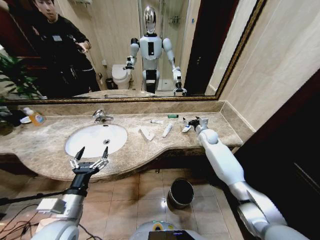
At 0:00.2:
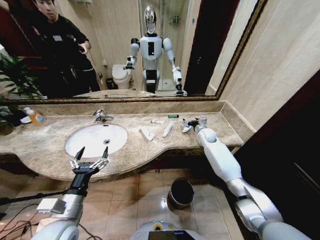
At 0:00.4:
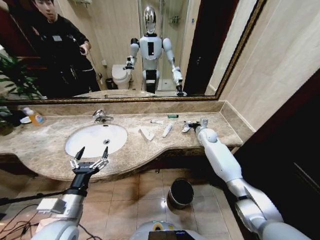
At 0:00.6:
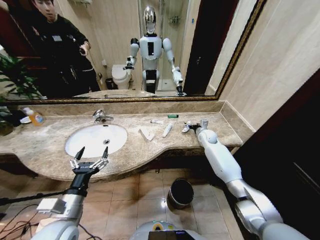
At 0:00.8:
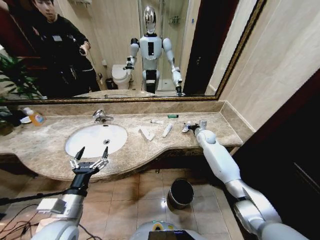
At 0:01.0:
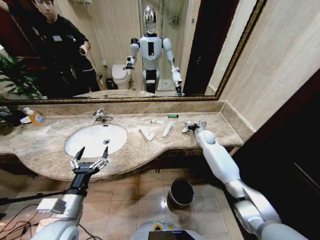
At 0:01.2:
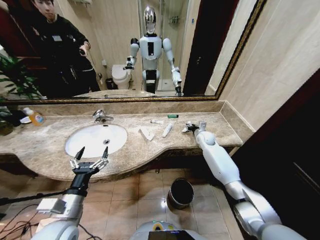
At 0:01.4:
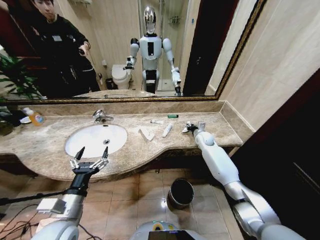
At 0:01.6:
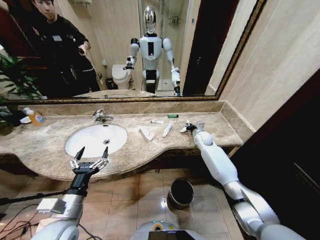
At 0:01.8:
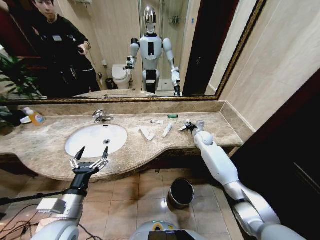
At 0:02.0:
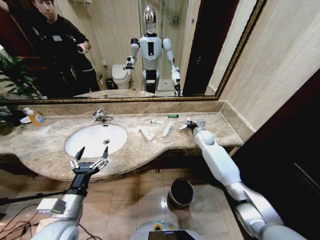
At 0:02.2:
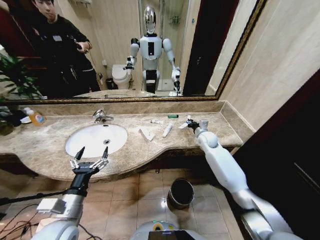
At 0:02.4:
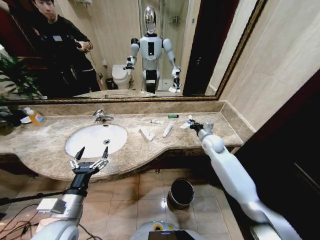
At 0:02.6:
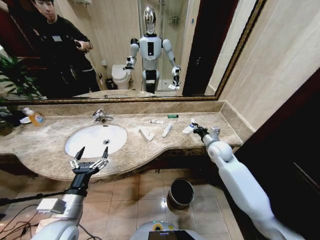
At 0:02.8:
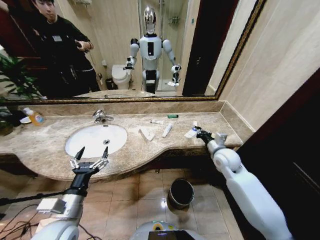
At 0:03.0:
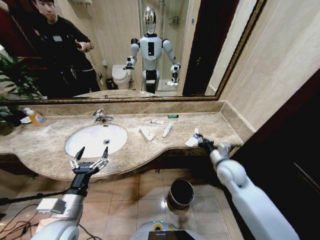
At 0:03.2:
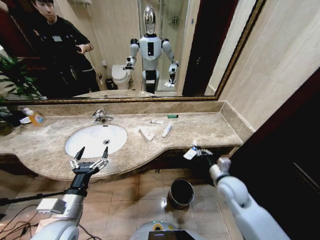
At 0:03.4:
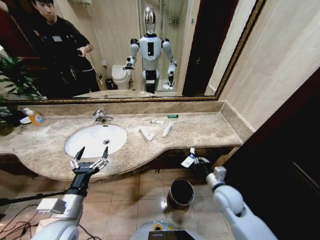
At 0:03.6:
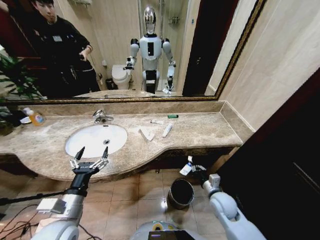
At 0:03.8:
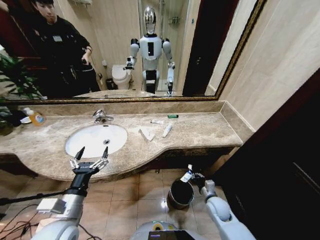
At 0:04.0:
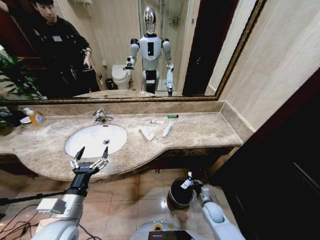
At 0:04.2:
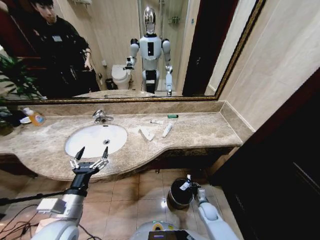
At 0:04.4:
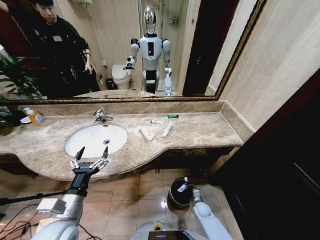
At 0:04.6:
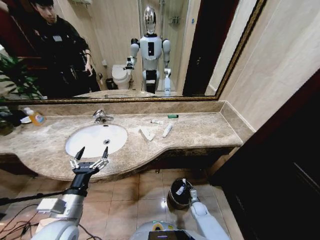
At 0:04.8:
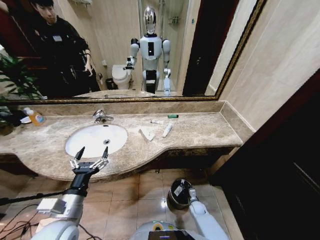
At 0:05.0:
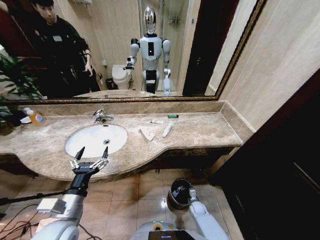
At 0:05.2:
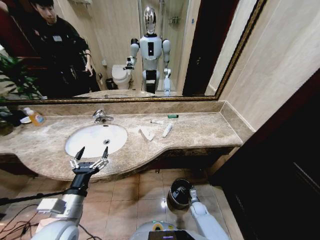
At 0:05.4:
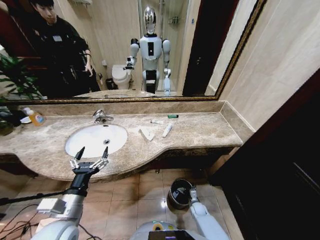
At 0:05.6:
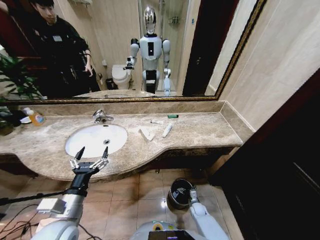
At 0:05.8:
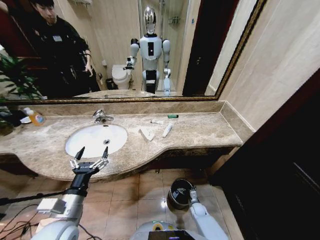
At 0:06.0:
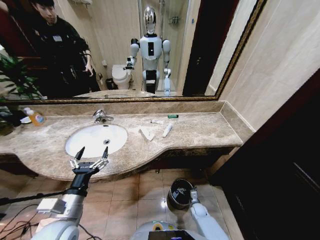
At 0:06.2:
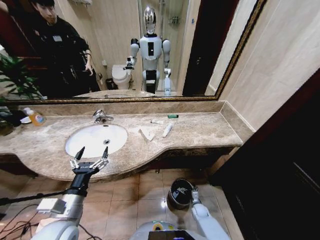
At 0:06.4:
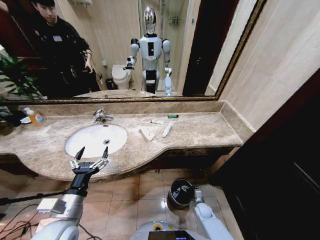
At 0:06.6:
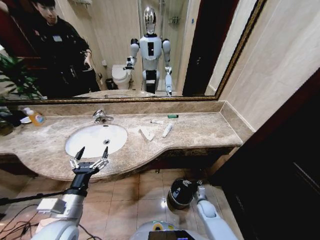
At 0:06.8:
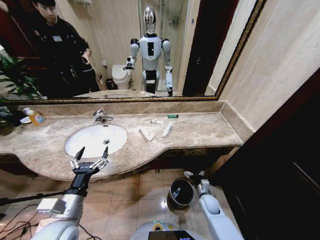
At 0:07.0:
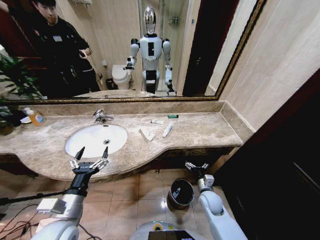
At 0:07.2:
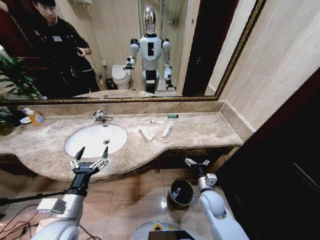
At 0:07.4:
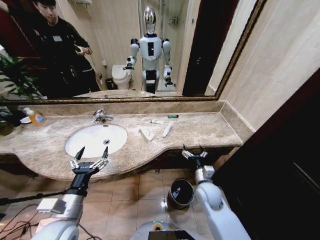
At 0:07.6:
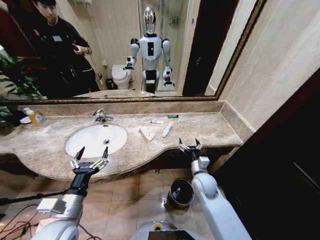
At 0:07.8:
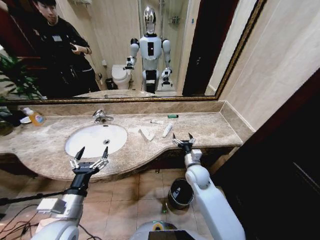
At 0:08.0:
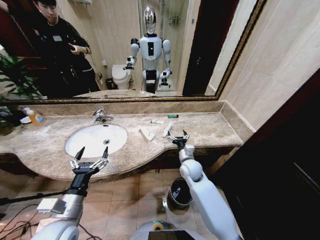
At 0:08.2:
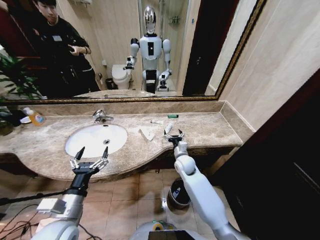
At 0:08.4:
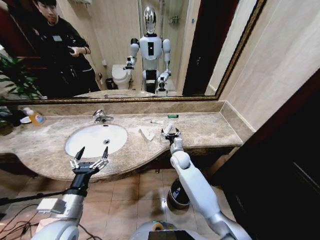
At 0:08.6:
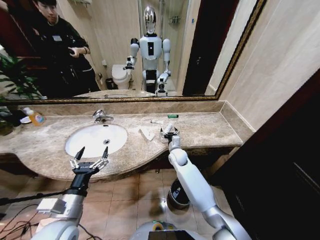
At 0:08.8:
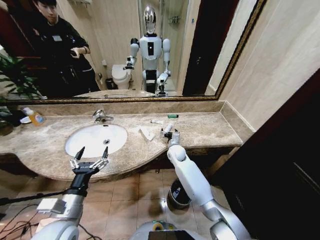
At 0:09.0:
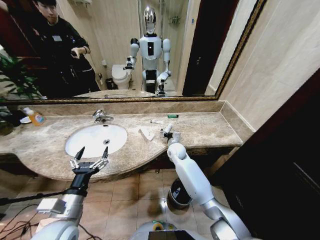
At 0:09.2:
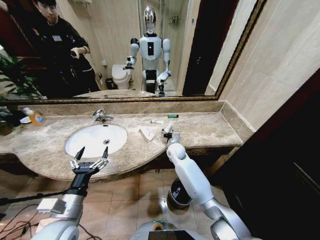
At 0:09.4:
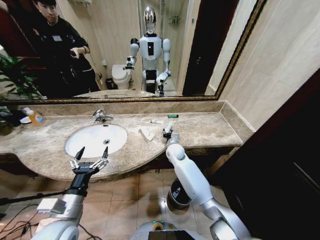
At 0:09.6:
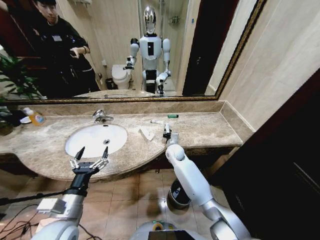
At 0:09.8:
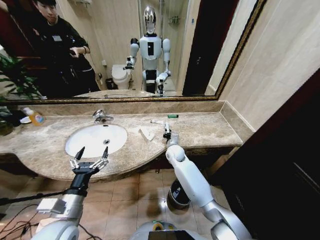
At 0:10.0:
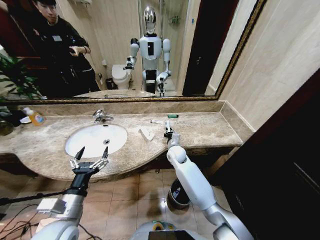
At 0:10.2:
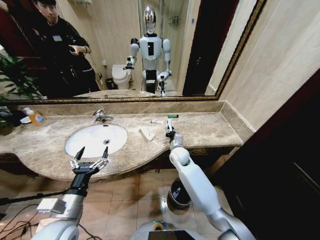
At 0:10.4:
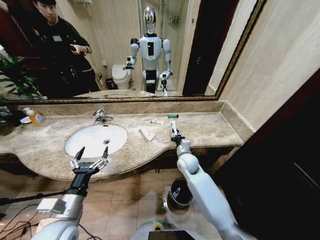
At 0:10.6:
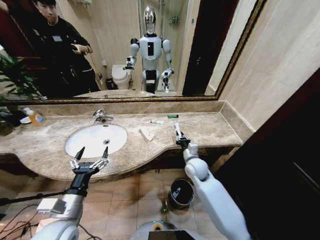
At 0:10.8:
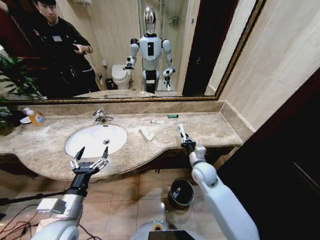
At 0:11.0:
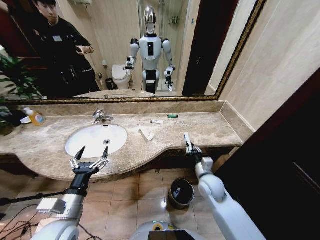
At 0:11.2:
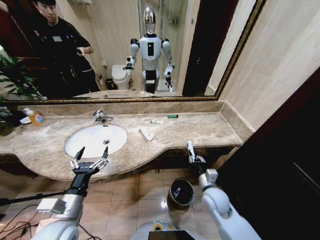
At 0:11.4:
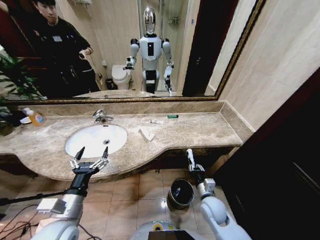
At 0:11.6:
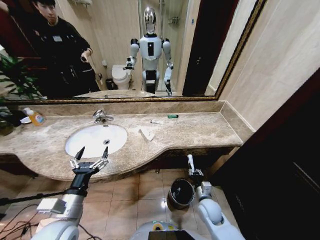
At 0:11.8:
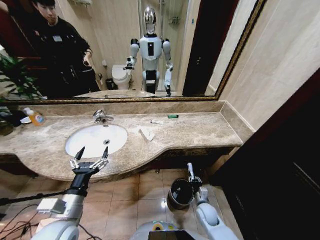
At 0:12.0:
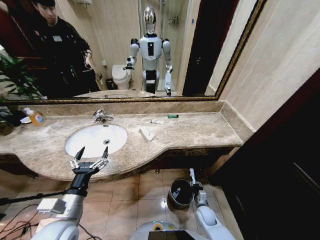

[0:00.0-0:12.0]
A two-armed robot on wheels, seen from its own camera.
Task of the whole recording: Pick up the trash from the sink and place it in the trash bin.
0:00.0 to 0:01.6: The right gripper closes its fingers.
0:01.6 to 0:03.0: The right gripper travels backward by some 25 cm.
0:03.0 to 0:04.4: The right gripper moves downward, about 35 cm.
0:04.4 to 0:06.0: The right gripper opens its fingers.
0:06.0 to 0:07.6: The right gripper shifts approximately 30 cm upward.
0:07.6 to 0:09.0: The right gripper moves forward and to the left, some 20 cm.
0:09.0 to 0:10.4: The right gripper shifts approximately 5 cm backward, and closes its fingers.
0:10.4 to 0:12.0: The right gripper shifts some 30 cm downward, backward and to the right.

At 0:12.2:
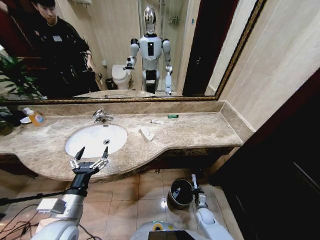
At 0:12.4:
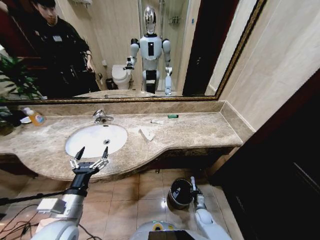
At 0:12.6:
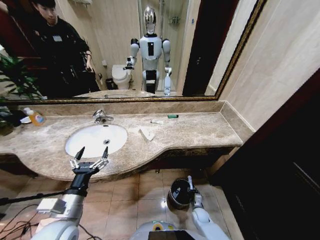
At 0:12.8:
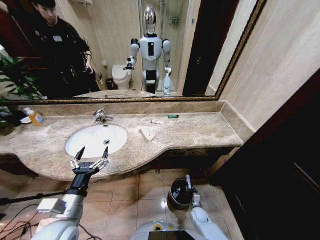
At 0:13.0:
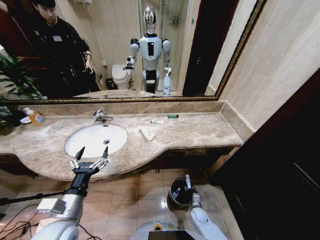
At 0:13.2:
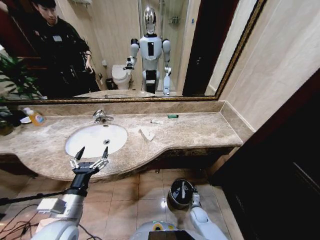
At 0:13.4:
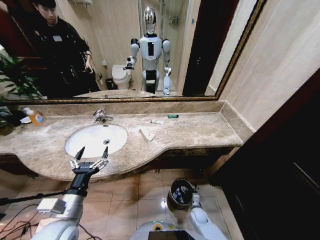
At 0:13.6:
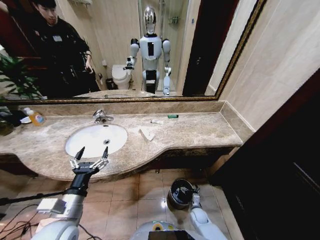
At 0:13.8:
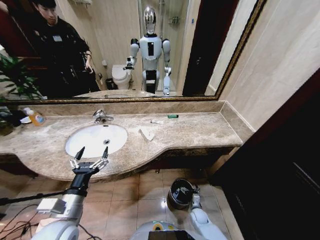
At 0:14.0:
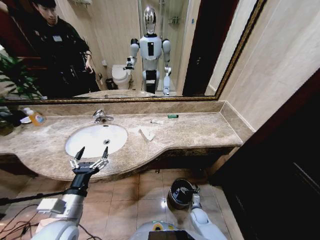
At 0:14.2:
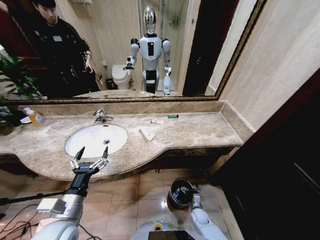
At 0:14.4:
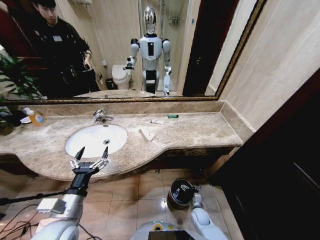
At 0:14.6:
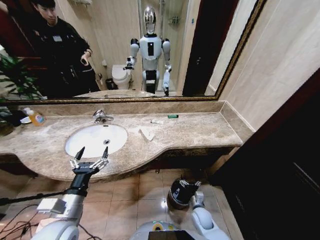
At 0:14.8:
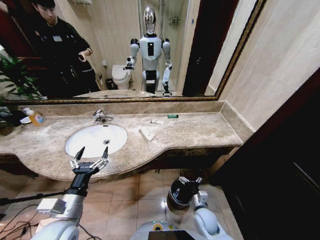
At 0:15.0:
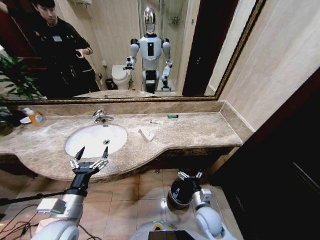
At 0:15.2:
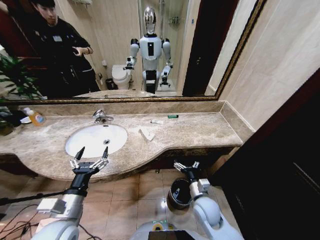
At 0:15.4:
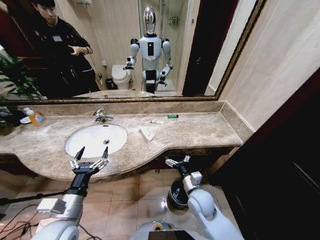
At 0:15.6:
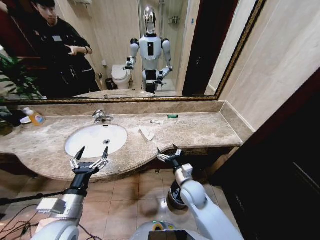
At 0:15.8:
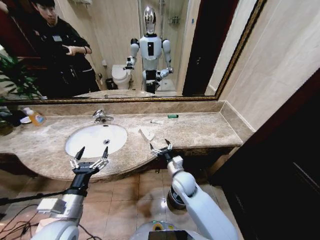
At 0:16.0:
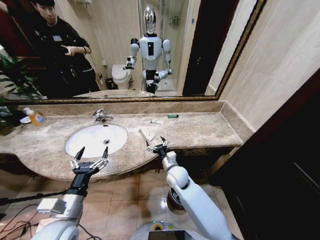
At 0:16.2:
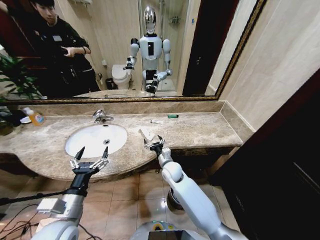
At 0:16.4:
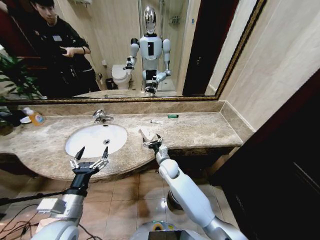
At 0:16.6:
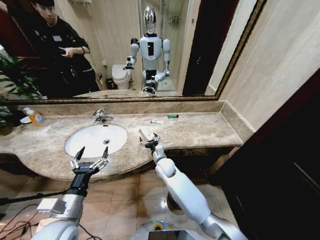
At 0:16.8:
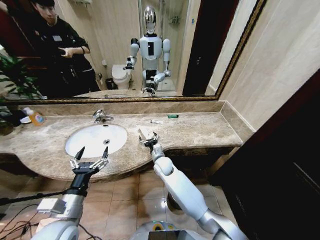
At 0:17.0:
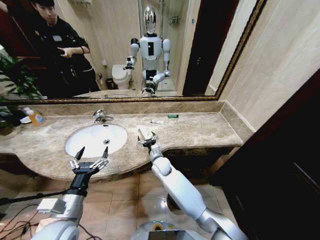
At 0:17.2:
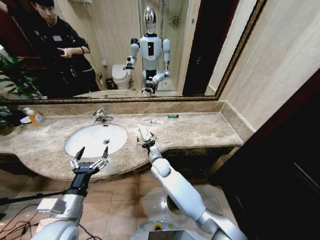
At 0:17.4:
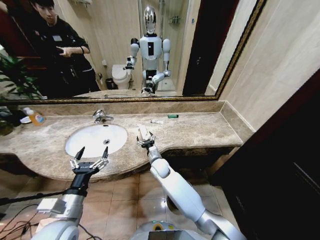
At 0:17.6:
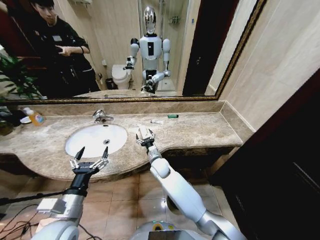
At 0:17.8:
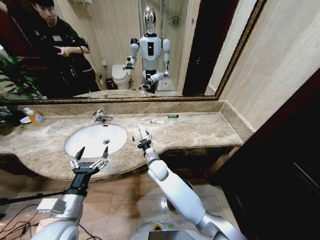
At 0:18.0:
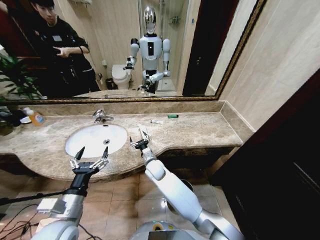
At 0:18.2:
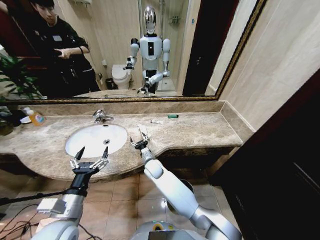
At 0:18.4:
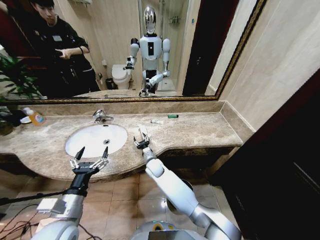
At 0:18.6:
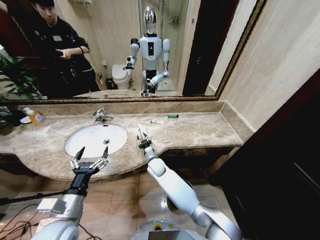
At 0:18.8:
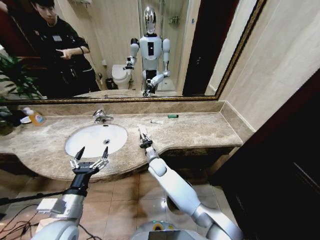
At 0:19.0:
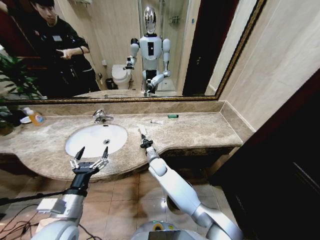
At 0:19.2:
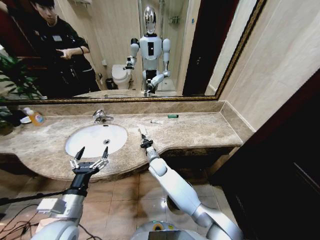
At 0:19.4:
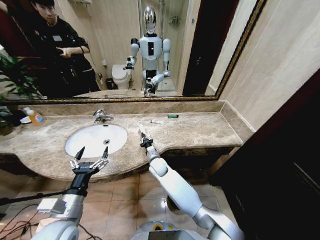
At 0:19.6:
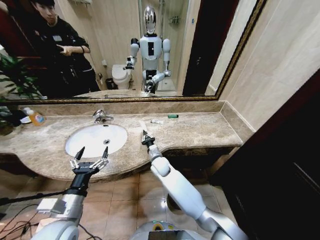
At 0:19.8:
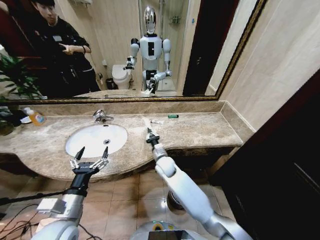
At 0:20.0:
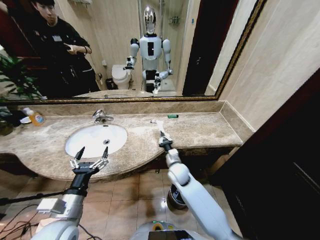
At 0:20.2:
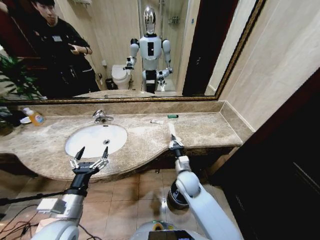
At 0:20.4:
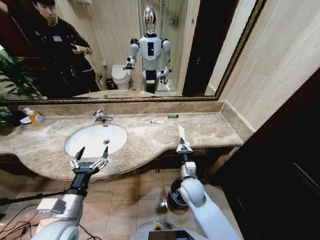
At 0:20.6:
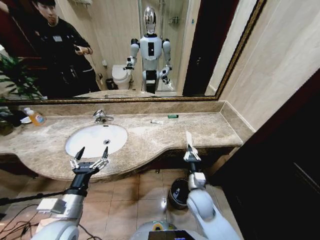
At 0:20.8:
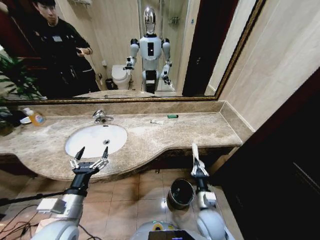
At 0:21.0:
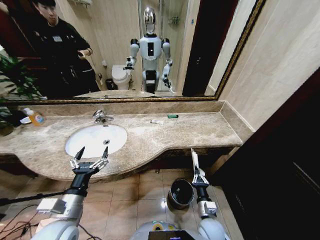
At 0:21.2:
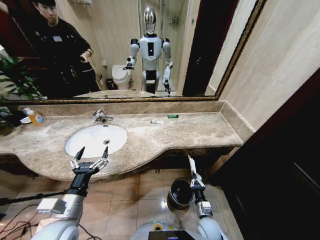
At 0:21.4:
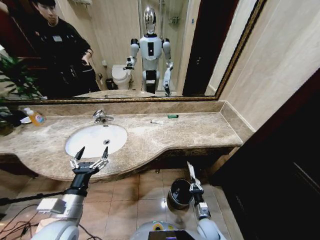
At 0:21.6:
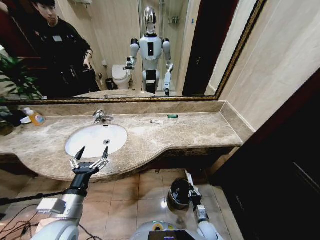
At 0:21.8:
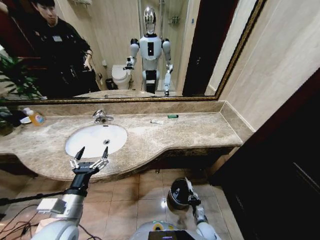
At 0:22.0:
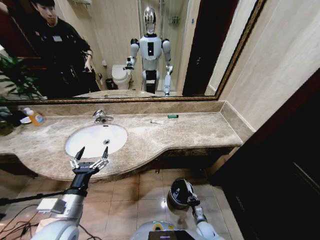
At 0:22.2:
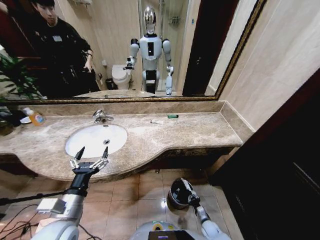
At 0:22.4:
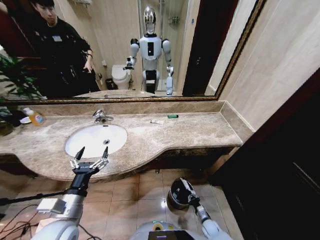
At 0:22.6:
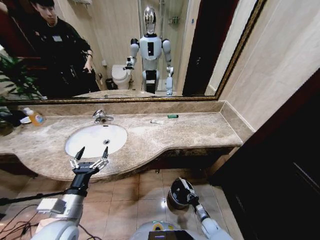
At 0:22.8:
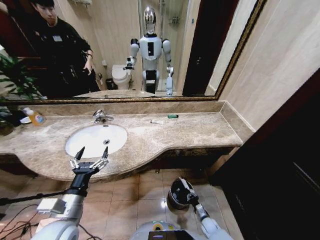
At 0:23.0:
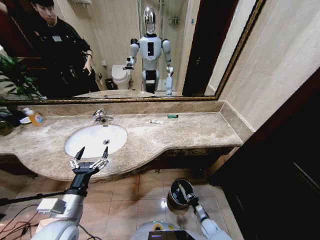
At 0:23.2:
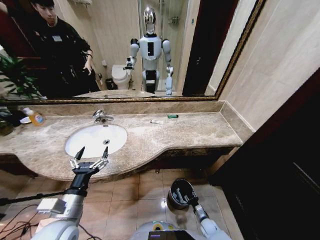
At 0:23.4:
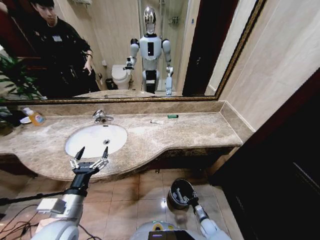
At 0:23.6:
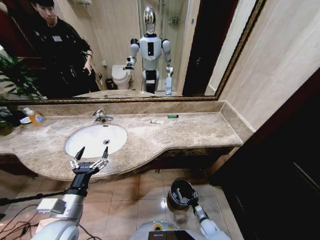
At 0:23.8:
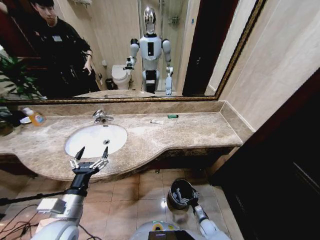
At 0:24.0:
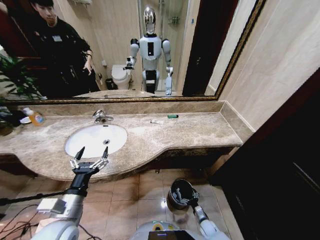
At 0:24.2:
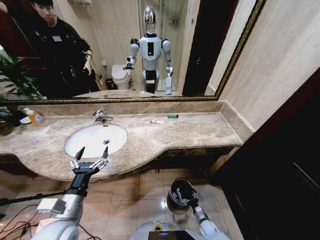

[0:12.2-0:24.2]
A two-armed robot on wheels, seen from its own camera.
Task of the whole recording: Pick up the trash from the sink and place it in the trash bin.
0:12.2 to 0:13.8: The right gripper opens up.
0:13.8 to 0:15.2: The right gripper is displaced upward by some 25 cm.
0:15.2 to 0:16.6: The right gripper travels forward and to the left by some 25 cm.
0:16.6 to 0:18.2: The right gripper is displaced to the left by about 5 cm.
0:18.2 to 0:19.8: The right gripper goes some 5 cm to the right, and closes up.
0:19.8 to 0:21.2: The right gripper moves backward, to the right and downward, approximately 35 cm.
0:21.2 to 0:22.6: The right gripper goes about 20 cm downward and to the right.
0:22.6 to 0:24.2: The right gripper opens.
